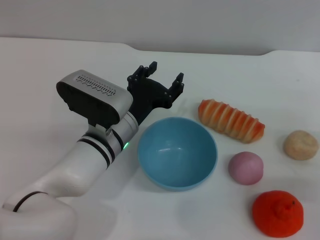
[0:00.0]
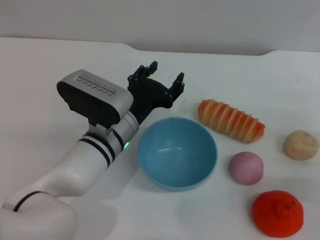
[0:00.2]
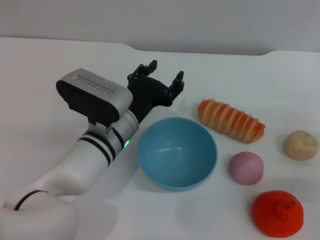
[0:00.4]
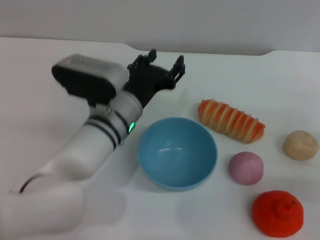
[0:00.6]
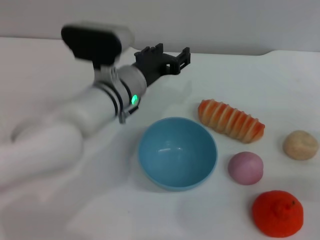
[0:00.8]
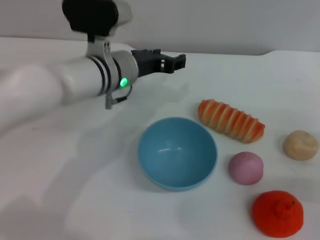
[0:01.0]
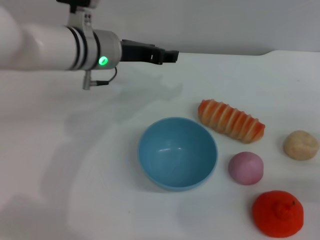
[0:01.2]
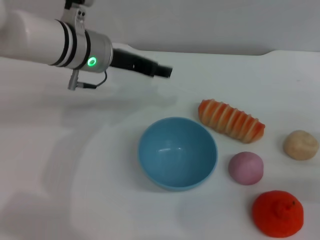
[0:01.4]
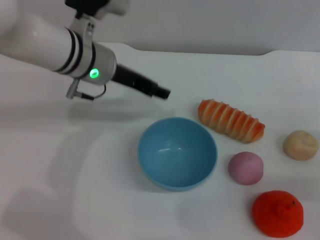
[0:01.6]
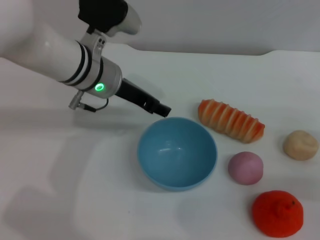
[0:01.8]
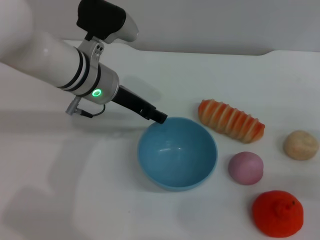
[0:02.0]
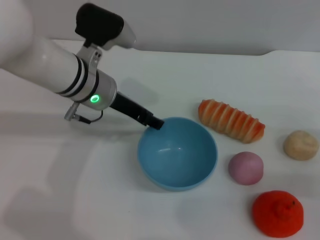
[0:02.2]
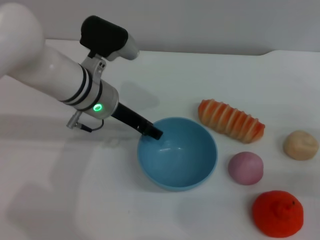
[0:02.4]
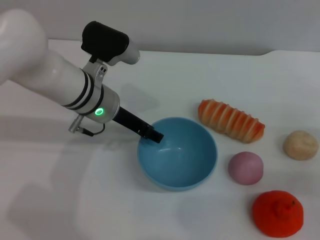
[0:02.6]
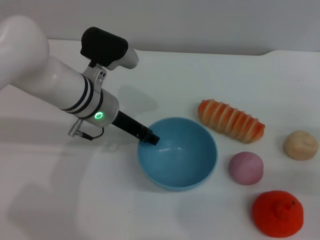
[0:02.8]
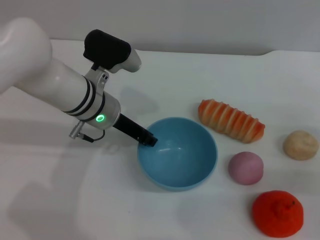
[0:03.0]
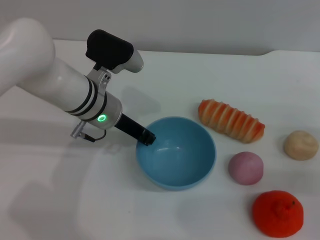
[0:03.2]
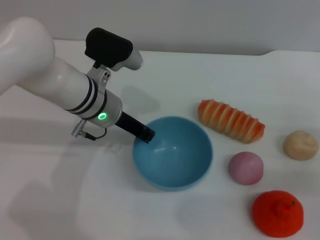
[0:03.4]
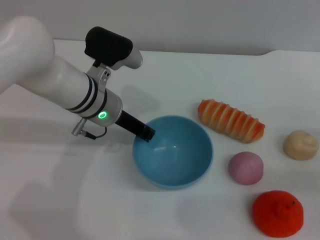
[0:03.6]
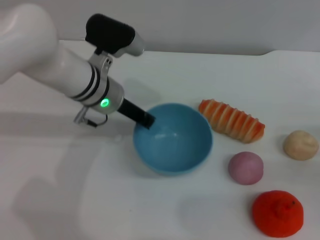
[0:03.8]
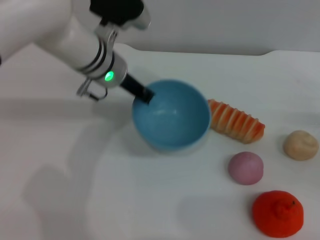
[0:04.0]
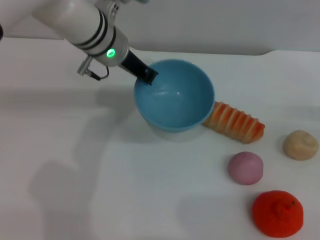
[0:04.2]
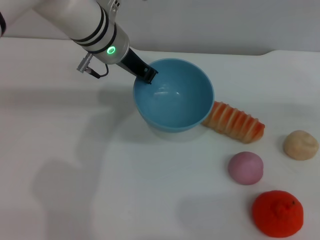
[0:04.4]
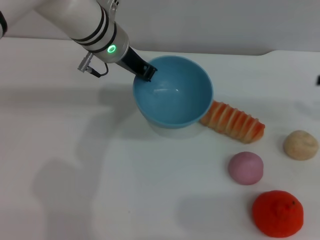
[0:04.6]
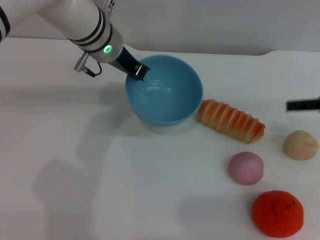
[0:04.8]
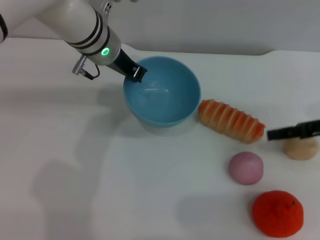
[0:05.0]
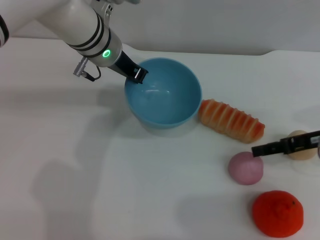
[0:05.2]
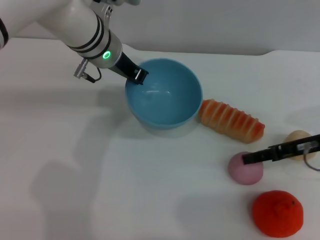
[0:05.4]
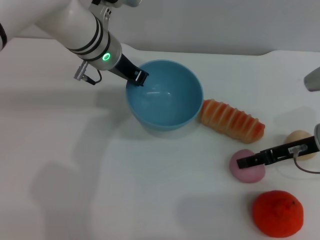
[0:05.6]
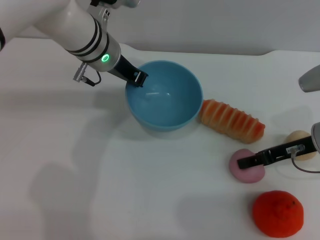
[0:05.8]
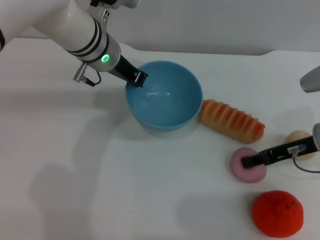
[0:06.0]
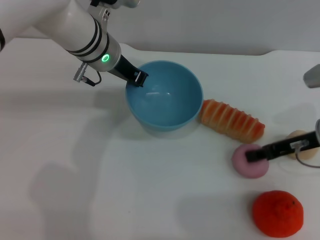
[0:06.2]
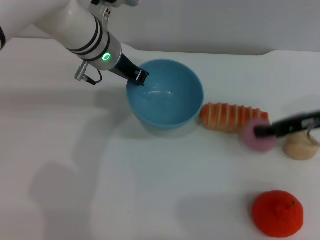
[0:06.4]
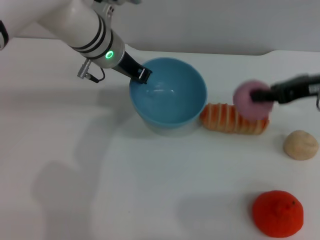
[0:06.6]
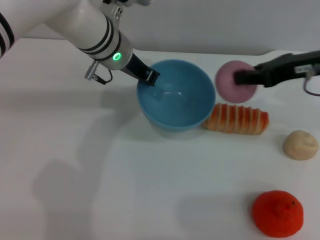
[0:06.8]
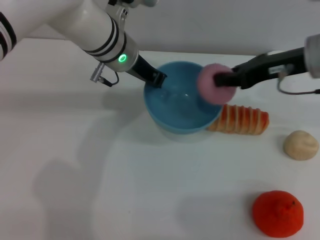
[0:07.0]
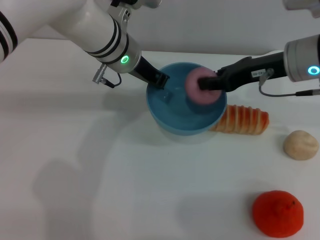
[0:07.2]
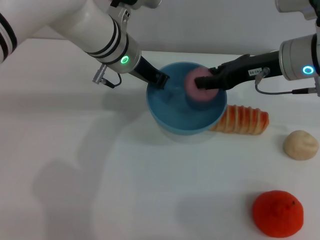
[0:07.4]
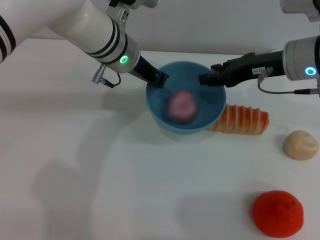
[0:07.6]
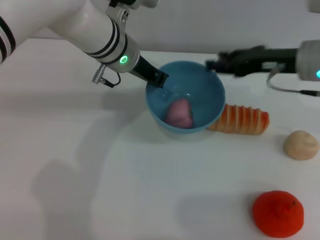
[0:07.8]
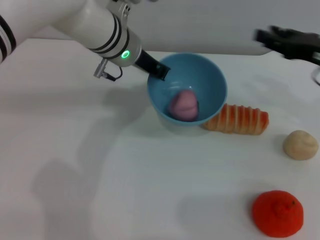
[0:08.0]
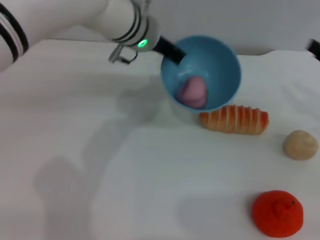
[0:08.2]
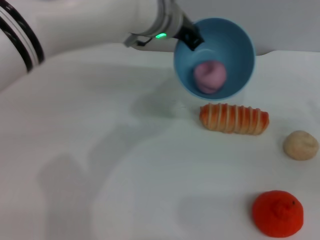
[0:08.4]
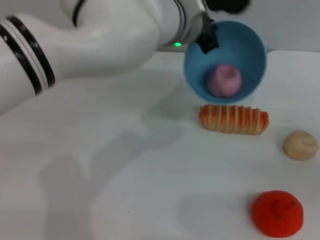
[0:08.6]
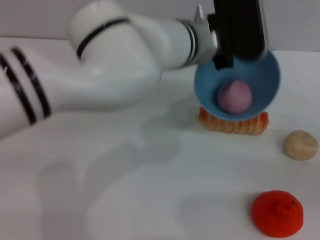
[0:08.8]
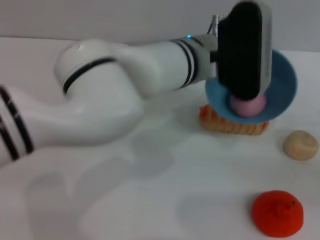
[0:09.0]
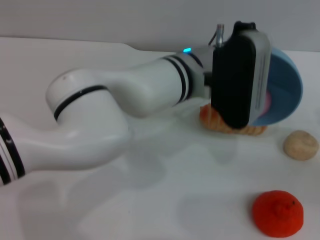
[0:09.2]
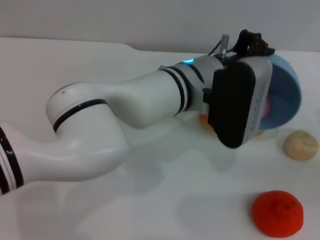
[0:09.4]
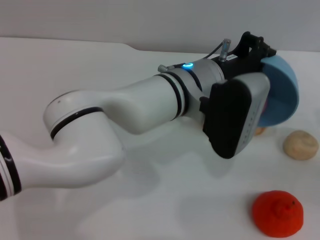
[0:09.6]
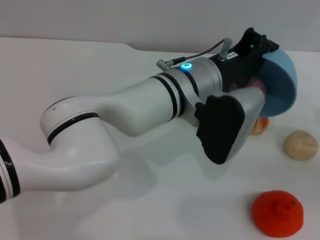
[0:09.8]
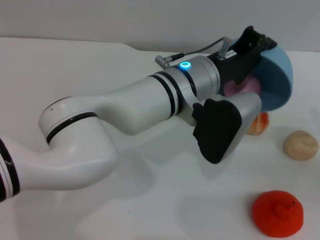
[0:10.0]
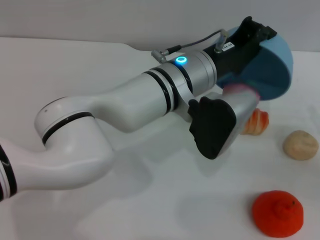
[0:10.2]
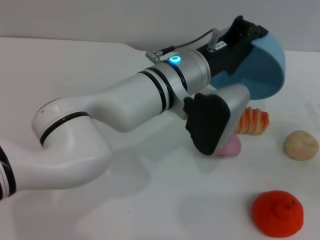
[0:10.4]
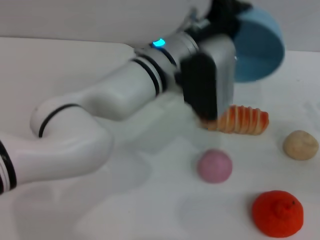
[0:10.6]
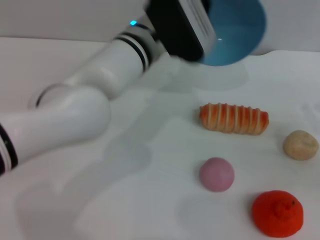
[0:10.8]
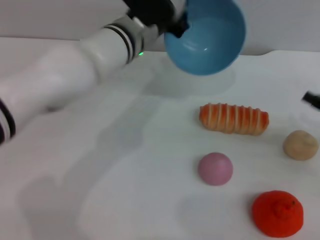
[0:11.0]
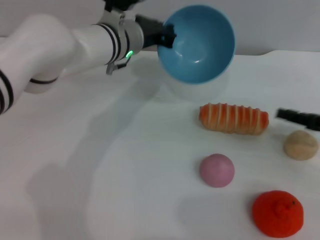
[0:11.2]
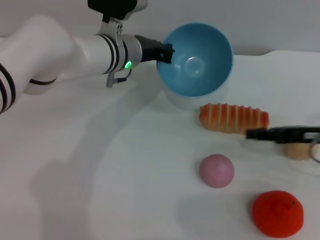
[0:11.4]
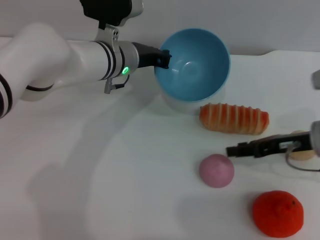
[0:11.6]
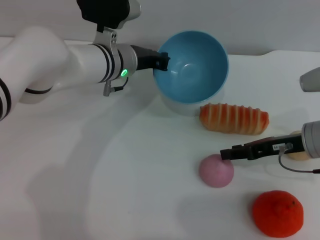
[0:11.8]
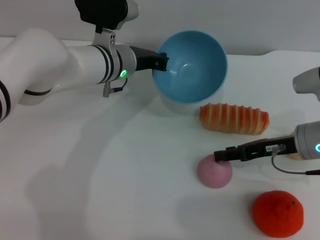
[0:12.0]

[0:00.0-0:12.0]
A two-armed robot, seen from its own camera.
Task of the whole recording: put the peach into the blue bowl and pour it out repeatedly.
Step, 0:00.0 to 0:03.8: Pick up the bowl with the left gripper.
Step, 0:04.2 to 0:06.4: Pick up the peach with the right gripper.
Step, 0:06.6 to 0:07.8: Place the peach into the bowl.
Step, 0:08.0 to 0:10.4: Pour the peach out of bowl.
0:00.0 to 0:01.6: The left gripper travels upward and forward by roughly 15 cm.
0:01.6 to 0:03.0: The left gripper goes some 5 cm downward.
0:03.0 to 0:04.4: The left gripper shifts approximately 10 cm upward and forward, and closes its fingers. The right gripper goes some 15 cm upward, forward and to the right.
0:04.4 to 0:06.0: The right gripper moves to the left, some 15 cm.
0:06.0 to 0:07.6: The right gripper shifts approximately 10 cm upward, to the left and forward, and closes, then reopens.
0:07.6 to 0:09.0: The right gripper is displaced to the right, backward and downward by roughly 25 cm. The left gripper shifts some 10 cm to the right and backward.
0:10.4 to 0:12.0: Both grippers move to the left and forward, about 15 cm.

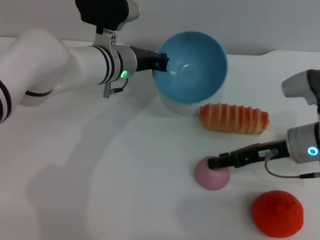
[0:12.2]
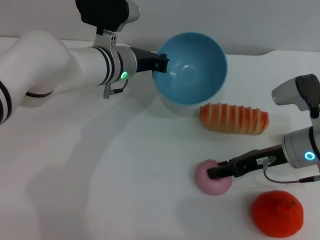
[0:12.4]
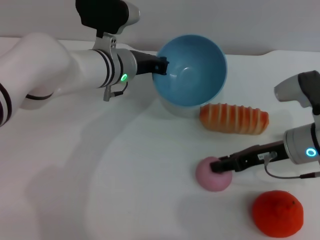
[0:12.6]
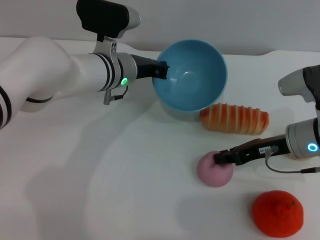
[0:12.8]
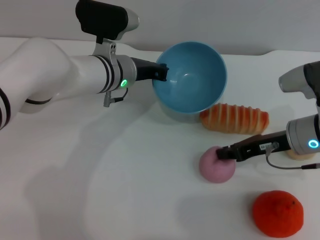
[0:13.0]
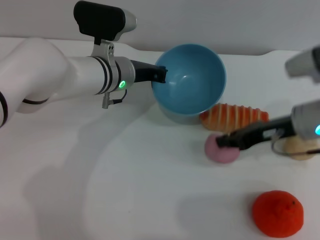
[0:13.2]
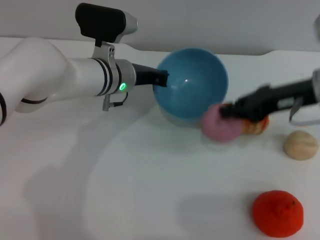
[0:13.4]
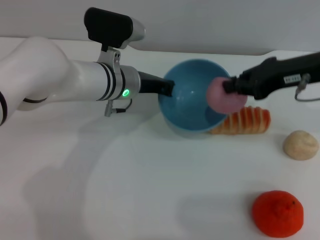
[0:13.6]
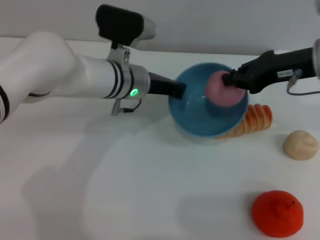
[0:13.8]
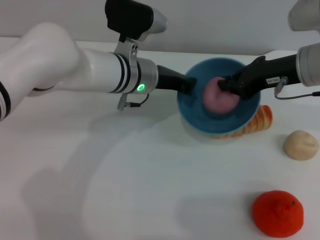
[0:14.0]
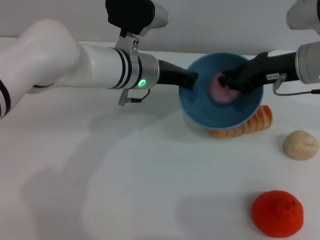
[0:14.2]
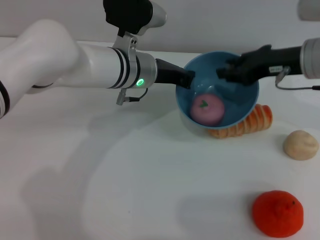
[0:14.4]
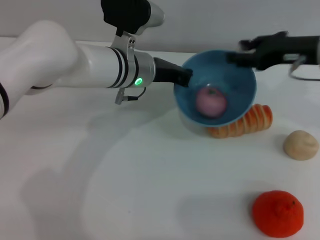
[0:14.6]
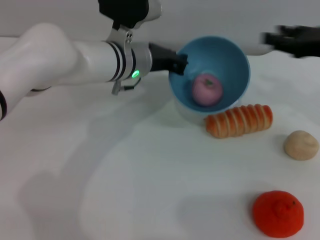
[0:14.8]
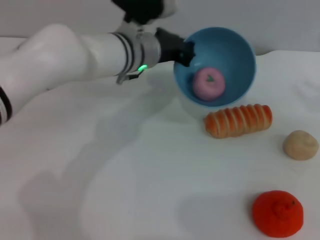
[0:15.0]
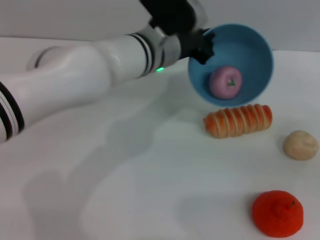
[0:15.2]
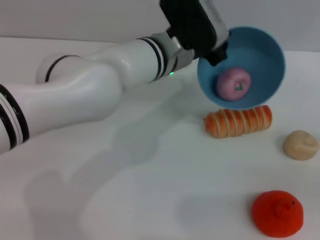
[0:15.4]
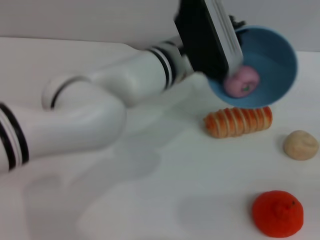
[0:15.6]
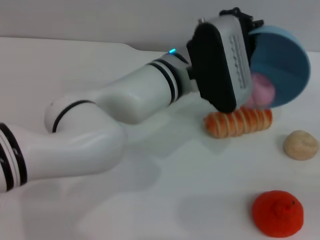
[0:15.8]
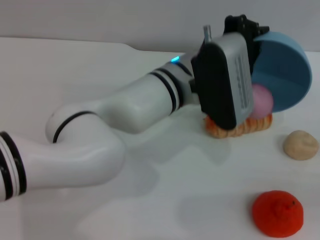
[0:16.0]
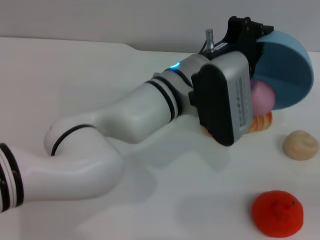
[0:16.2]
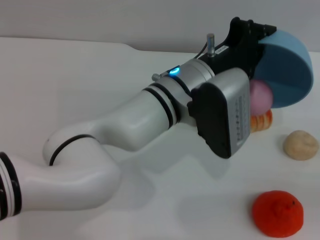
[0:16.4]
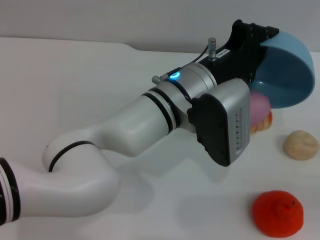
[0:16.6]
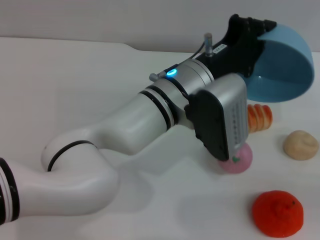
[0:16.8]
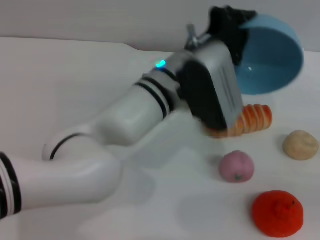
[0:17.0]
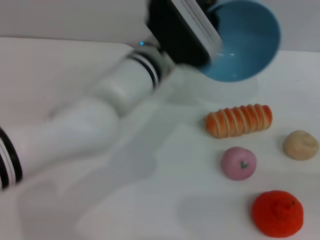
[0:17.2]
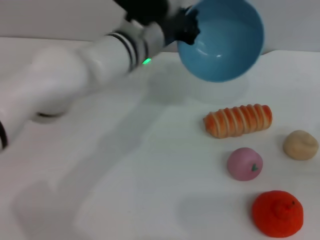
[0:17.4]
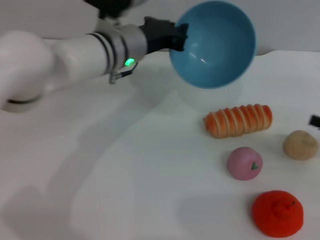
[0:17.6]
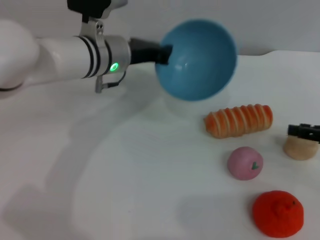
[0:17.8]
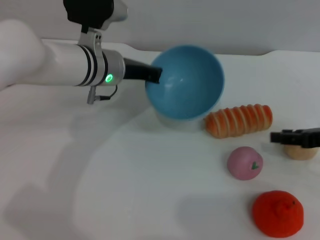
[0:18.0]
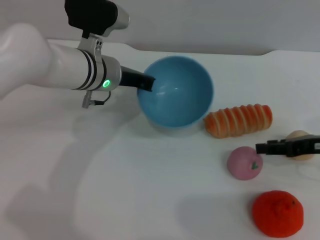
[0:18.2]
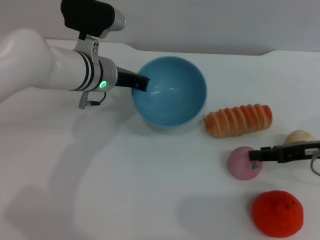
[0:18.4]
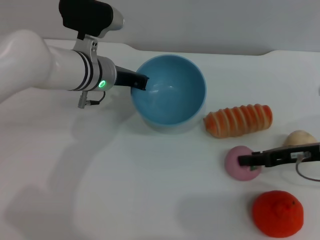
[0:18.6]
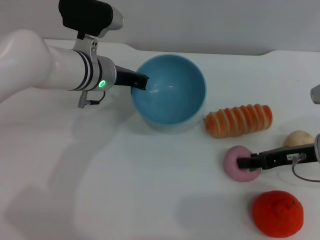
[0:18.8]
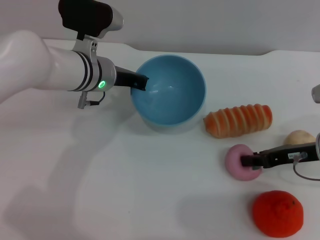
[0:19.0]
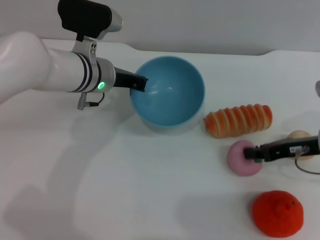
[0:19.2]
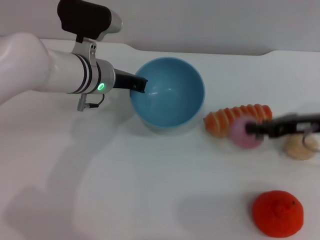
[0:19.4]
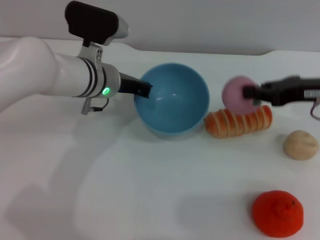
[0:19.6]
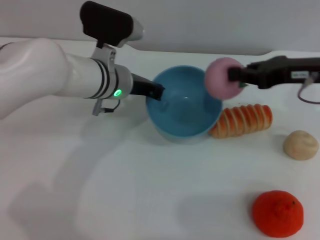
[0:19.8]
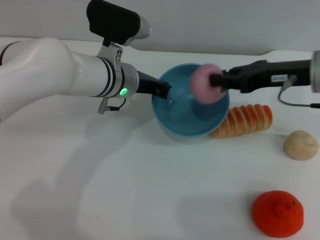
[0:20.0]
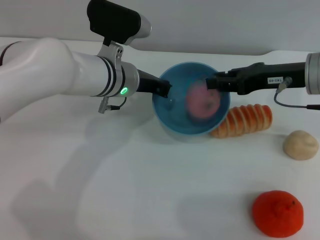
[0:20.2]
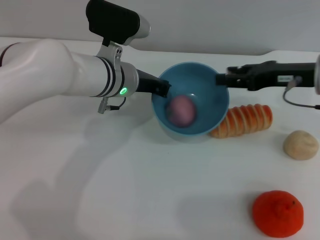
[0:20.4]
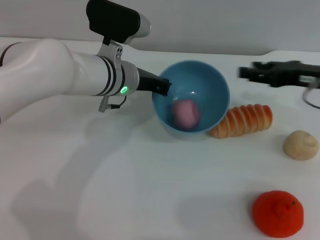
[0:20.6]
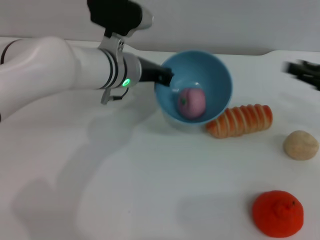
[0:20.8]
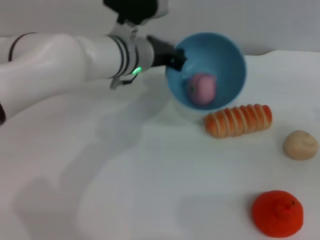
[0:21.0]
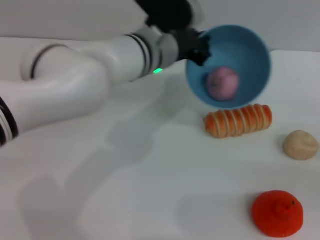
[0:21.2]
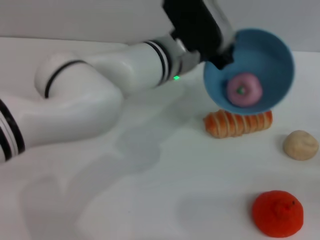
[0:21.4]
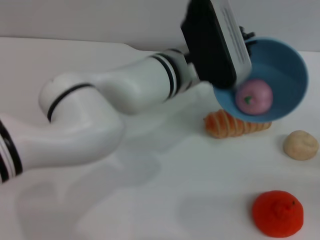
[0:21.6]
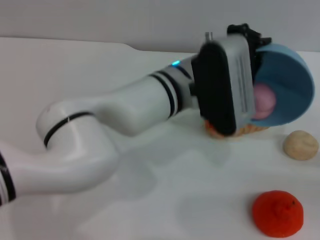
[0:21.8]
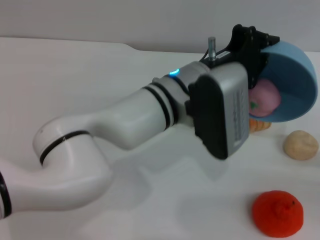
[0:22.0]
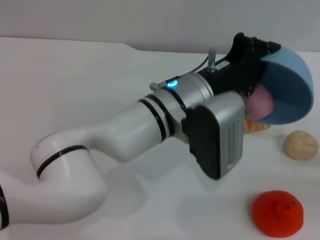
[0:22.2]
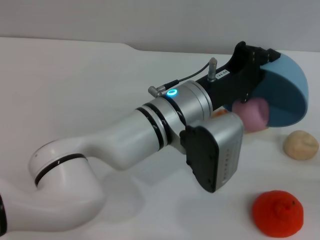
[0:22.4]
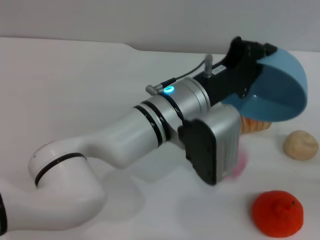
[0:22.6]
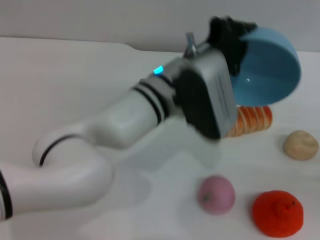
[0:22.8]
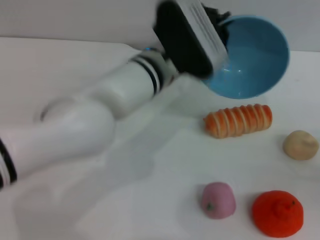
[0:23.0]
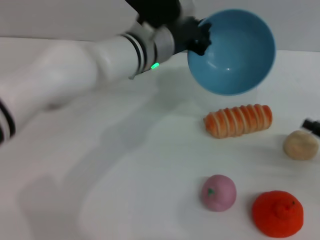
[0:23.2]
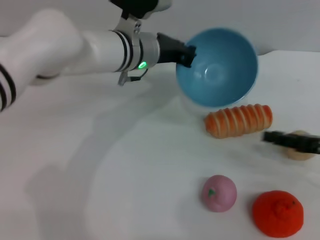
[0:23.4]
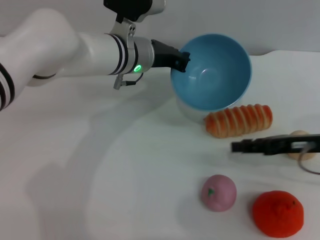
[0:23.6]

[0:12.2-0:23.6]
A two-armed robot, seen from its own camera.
Task of the whole recording: put the peach into the blue bowl and pour it out repeatedly.
Step, 0:13.6 to 0:14.4: Place the peach into the bowl.
Step, 0:14.6 to 0:16.8: Pour the peach out of bowl.
Step, 0:17.2 to 0:19.4: Pick up the peach with the right gripper.
Step, 0:19.6 to 0:20.4: Place the peach into the bowl.
Step, 0:20.6 to 0:22.6: Pour the peach out of bowl.
0:12.2 to 0:13.6: The right gripper goes some 15 cm upward, and closes.
0:13.6 to 0:15.0: The left gripper changes place by approximately 5 cm. The right gripper is displaced to the right and downward by approximately 15 cm, and opens its fingers.
0:15.0 to 0:16.4: The right gripper heads backward, downward and to the right, covering approximately 15 cm. Meanwhile the left gripper moves backward and to the right, some 10 cm.
0:16.4 to 0:17.8: The left gripper goes some 15 cm to the left and forward. The right gripper goes approximately 10 cm forward and to the left.
0:17.8 to 0:19.4: The right gripper shifts approximately 10 cm to the left, and closes its fingers.
0:19.4 to 0:20.8: The right gripper travels to the right by some 5 cm, and opens.
0:20.8 to 0:22.2: The left gripper goes some 15 cm backward and to the right. Meanwhile the right gripper travels backward, downward and to the right by some 15 cm.
0:22.2 to 0:23.6: The right gripper is displaced to the left and forward by roughly 15 cm, while the left gripper is displaced forward and to the left by about 15 cm.
